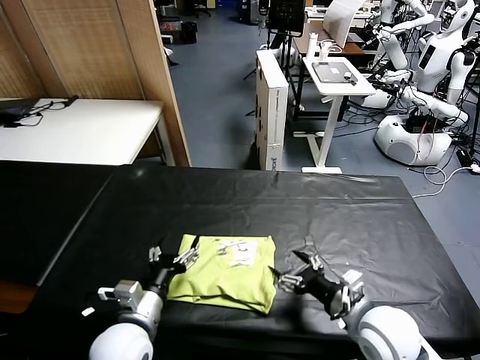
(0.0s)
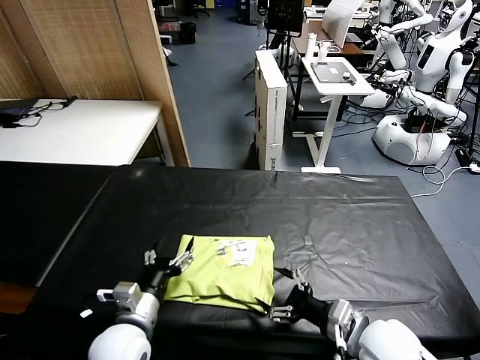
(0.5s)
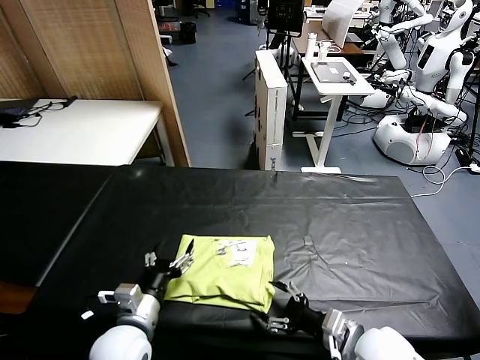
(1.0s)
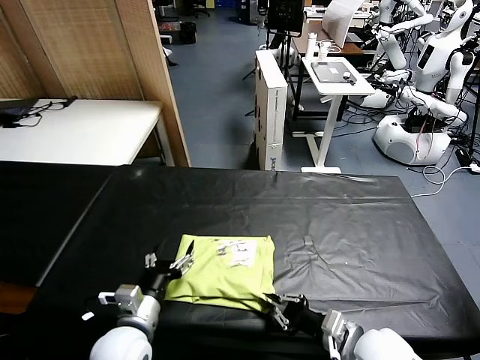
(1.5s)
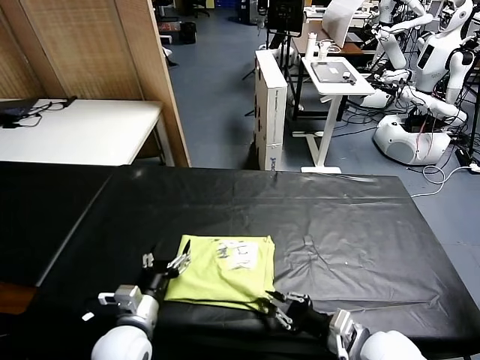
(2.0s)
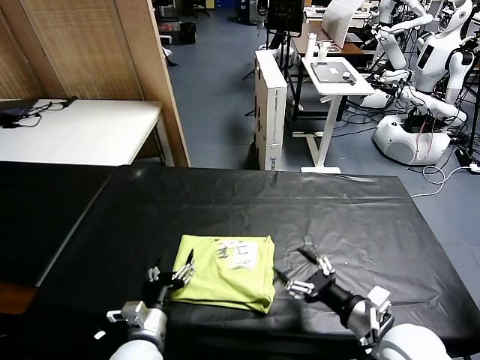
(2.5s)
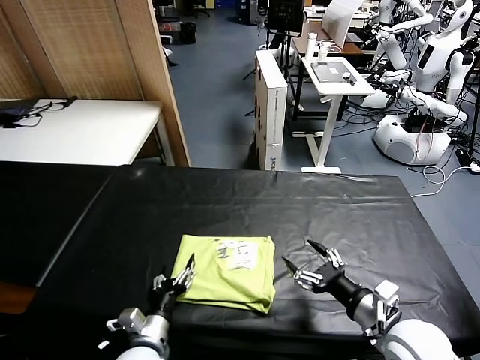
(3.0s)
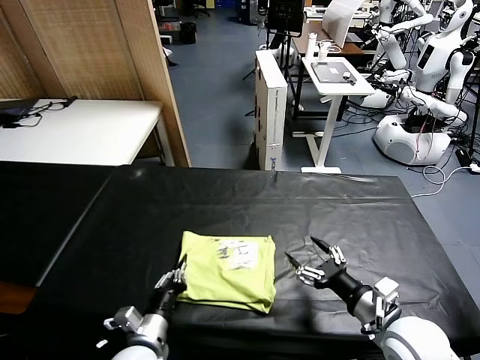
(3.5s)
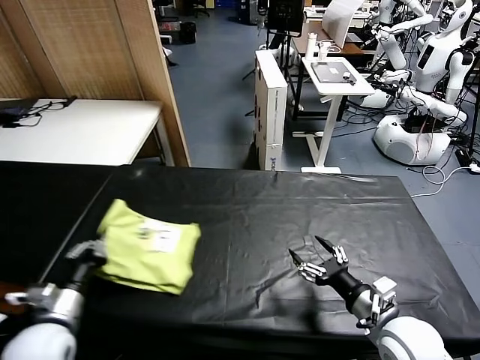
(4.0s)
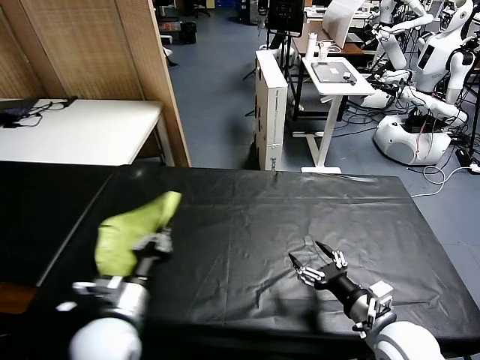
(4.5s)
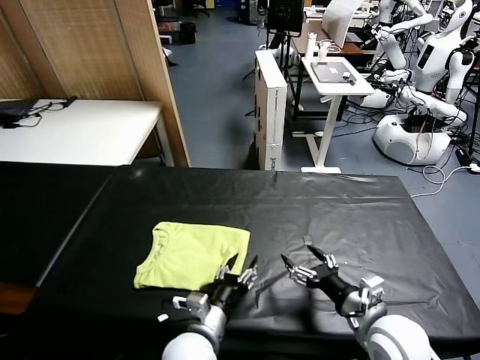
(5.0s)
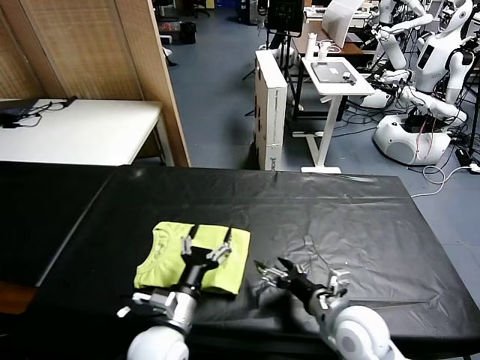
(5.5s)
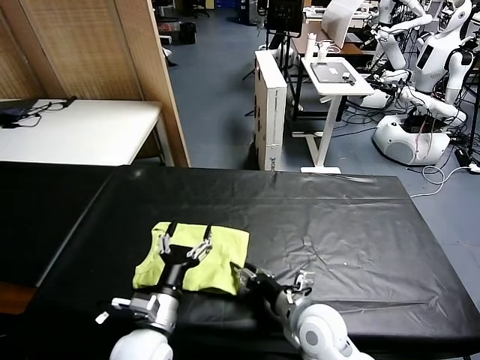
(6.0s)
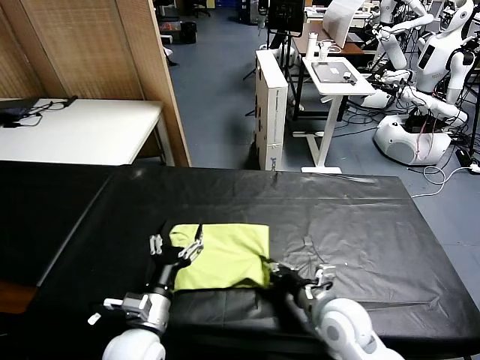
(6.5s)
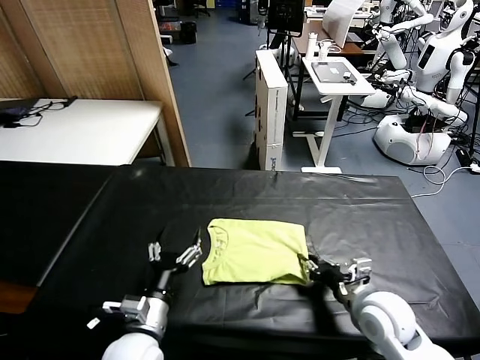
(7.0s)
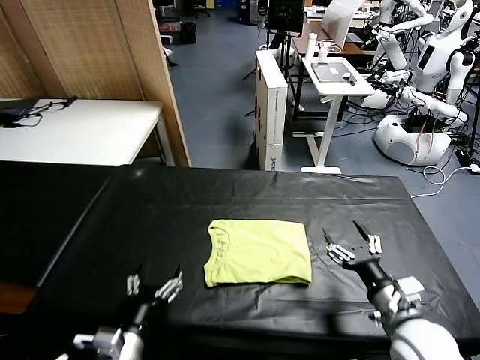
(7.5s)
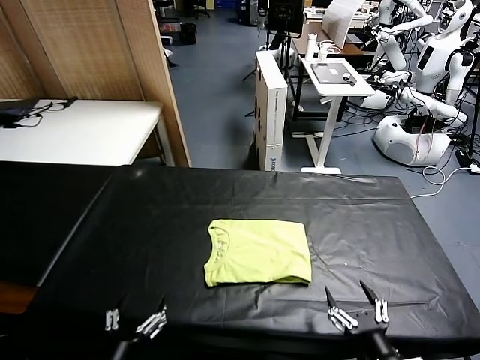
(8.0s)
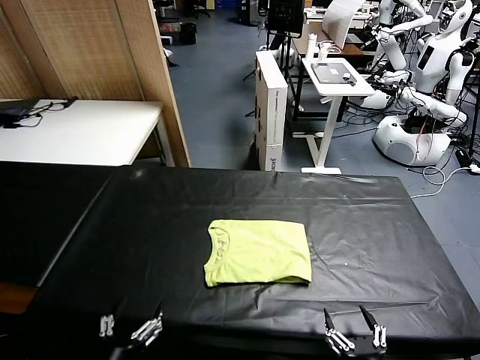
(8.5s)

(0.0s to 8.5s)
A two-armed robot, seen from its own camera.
Task of the whole recording: fold and organize the clothes.
Step, 0.0s - 5.0s: Flip the folded clothes over with left gripper.
Step, 5.5s - 7.0s: Drag the clothes to the center of the table.
0.0s - 2.0s: The right gripper closes.
2.0s - 4.0s: The left gripper moves to the left, about 15 cm, and closes its fingers; the right gripper opens its fingers.
4.0s - 6.5s: The left gripper moves to the right, approximately 15 cm, and opens up. Meanwhile the right gripper shifts about 10 cm to the left and forward, and closes up.
6.5s - 8.5s: The grippers both shift backward by about 20 cm. The right gripper opens its fingers.
